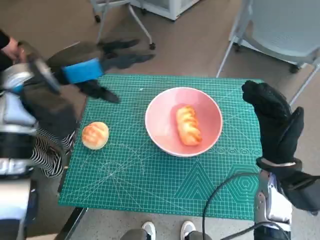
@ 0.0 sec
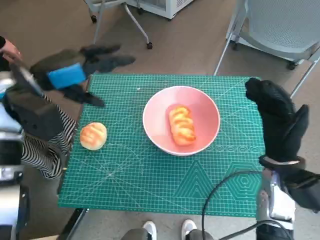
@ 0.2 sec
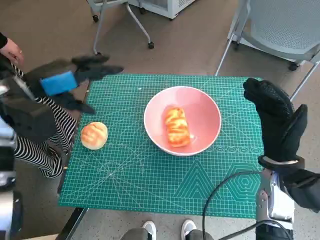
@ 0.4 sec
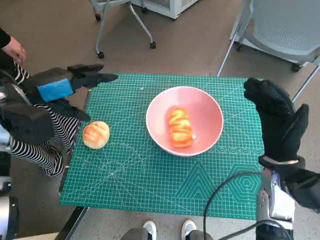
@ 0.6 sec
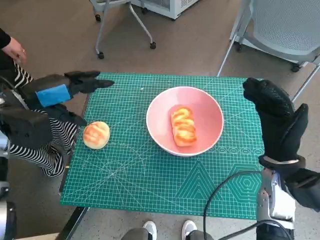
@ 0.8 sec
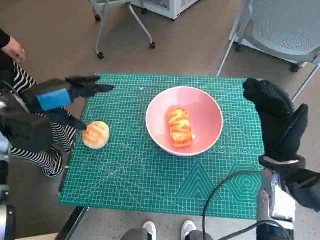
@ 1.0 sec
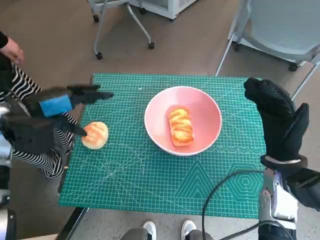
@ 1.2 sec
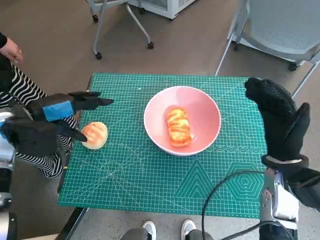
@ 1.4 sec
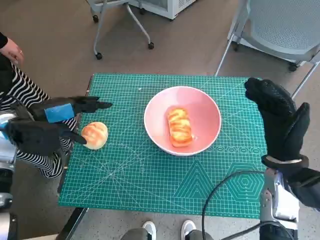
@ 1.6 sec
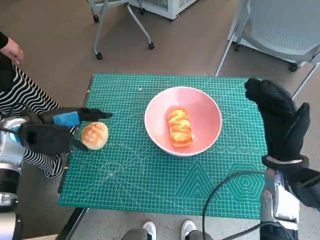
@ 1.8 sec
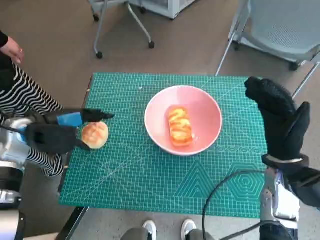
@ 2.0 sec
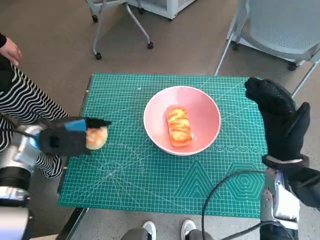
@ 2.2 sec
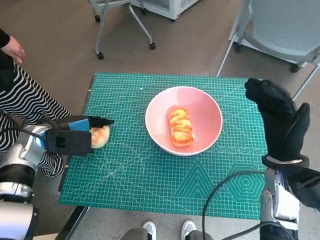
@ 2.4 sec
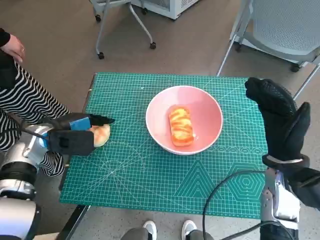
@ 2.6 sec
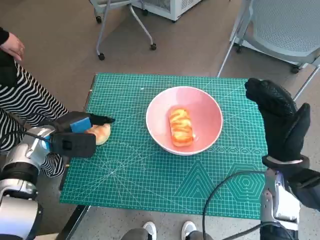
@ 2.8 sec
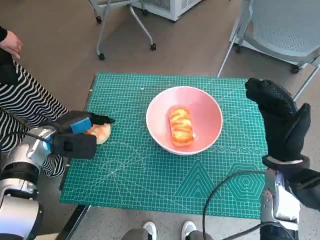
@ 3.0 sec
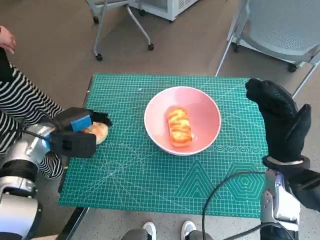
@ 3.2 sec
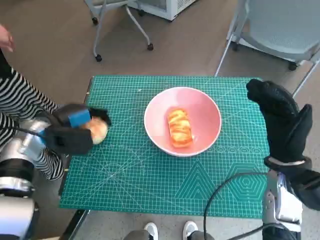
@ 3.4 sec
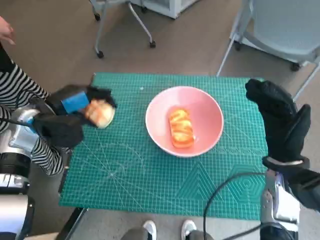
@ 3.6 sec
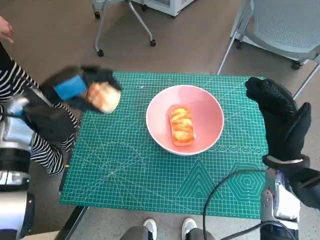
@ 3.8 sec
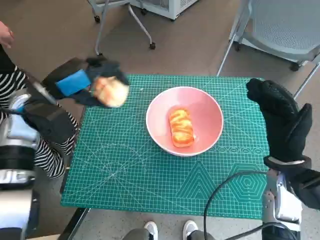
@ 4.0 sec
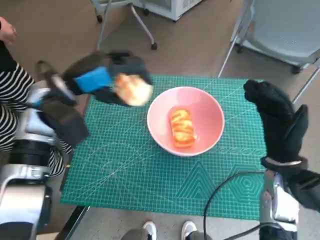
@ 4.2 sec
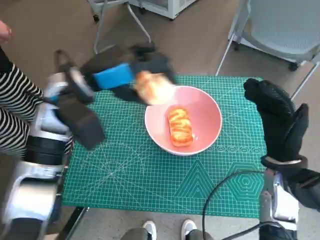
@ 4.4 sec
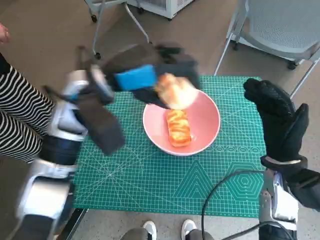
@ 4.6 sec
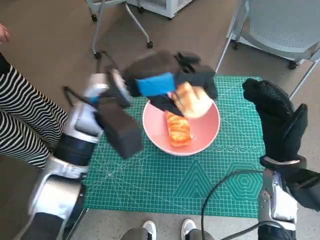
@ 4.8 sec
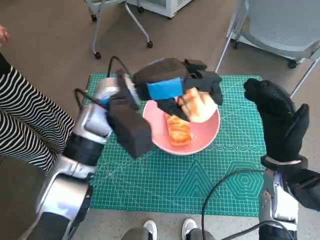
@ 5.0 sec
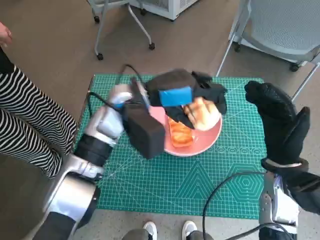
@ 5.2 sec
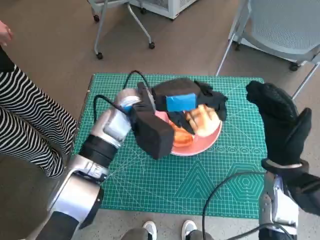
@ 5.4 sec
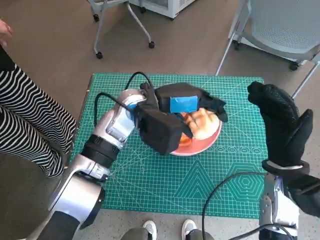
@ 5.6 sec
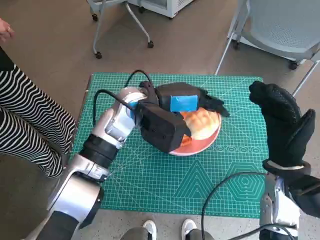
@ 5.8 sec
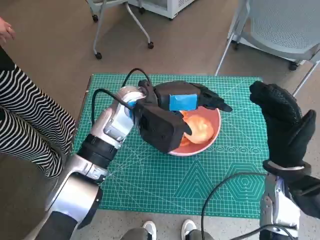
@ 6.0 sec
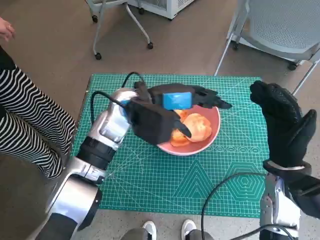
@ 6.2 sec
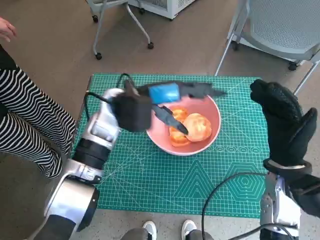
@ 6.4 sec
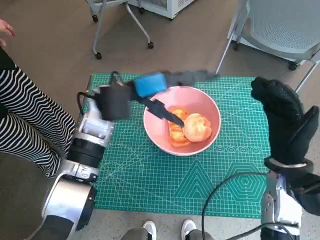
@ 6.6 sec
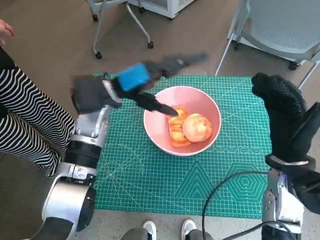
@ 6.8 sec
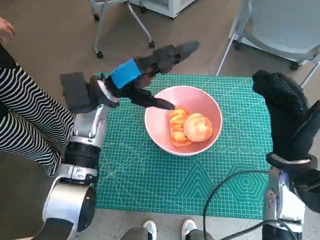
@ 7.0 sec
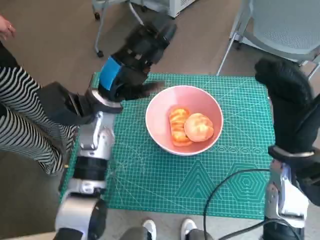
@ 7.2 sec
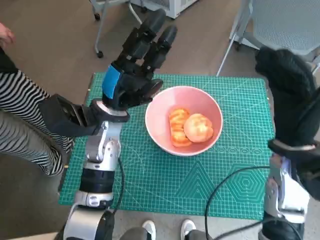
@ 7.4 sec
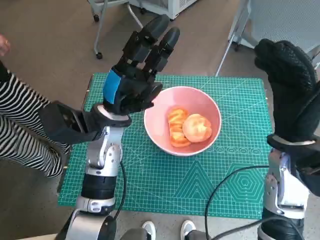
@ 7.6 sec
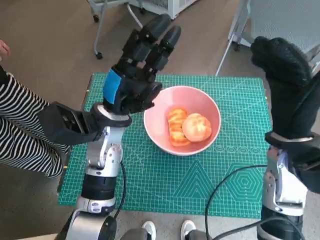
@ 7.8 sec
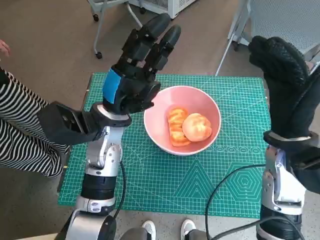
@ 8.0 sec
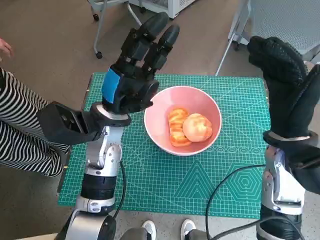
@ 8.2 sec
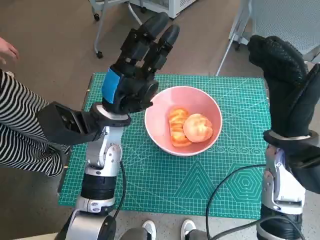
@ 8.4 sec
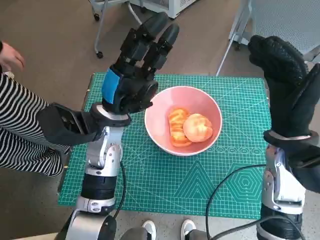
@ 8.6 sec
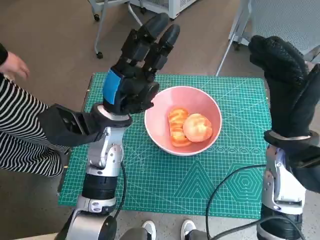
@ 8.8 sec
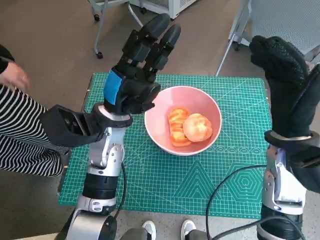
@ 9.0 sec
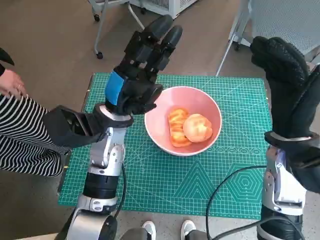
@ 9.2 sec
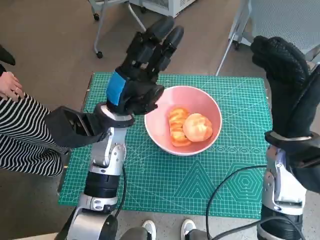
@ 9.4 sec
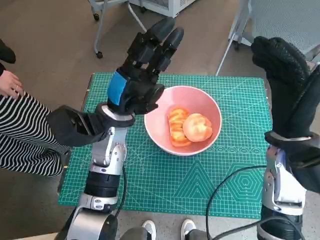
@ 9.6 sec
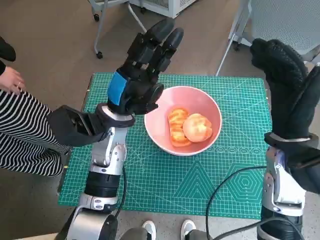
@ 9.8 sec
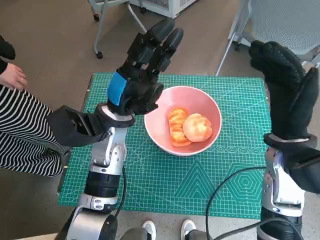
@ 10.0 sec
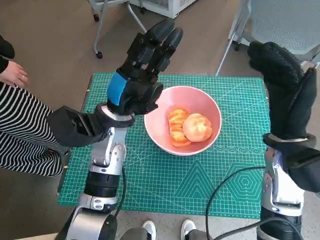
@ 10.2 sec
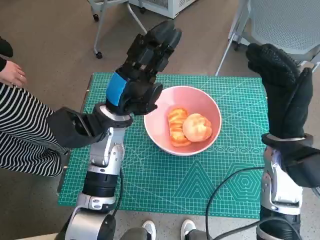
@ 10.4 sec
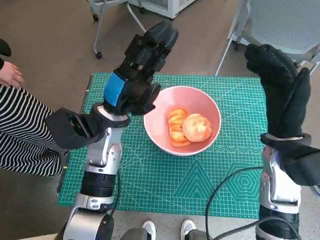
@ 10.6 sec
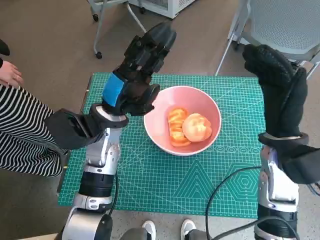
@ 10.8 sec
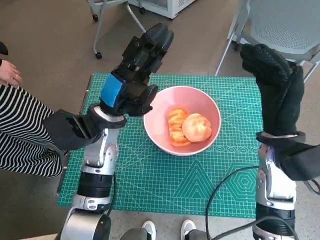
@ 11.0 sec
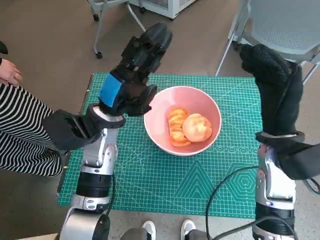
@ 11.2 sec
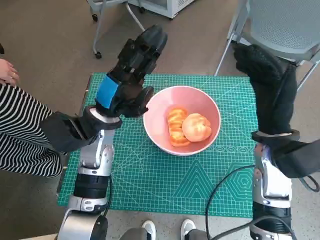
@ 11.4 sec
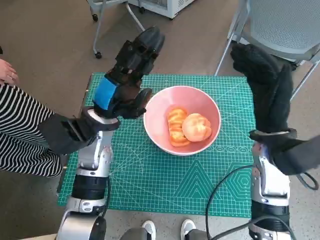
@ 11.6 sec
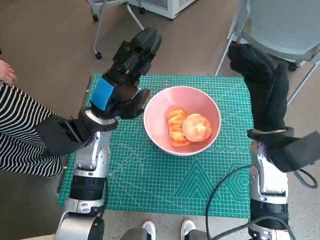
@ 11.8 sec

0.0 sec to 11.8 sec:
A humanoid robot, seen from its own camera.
Task of the whole recording: Push the bowl into the center of the table and put the bread into the bowl.
Step, 0.0 sec to 3.2 sec: Grasp the round bread with left hand.
Step, 3.4 sec to 6.4 sec: Place the round bread in pink bowl with left hand.
0.0 sec to 1.4 sec: The left hand moves to the left and downward, approximately 10 cm.
1.4 sec to 3.0 sec: The left hand shifts approximately 10 cm downward.
3.0 sec to 4.4 sec: The left hand moves upward and to the right, approximately 20 cm.
4.4 sec to 6.0 sec: The left hand moves to the right, some 10 cm.
6.0 sec to 7.4 sec: The right hand moves approximately 5 cm; the left hand is displaced to the left by about 5 cm.
8.8 sec to 10.4 sec: Neither hand changes place.

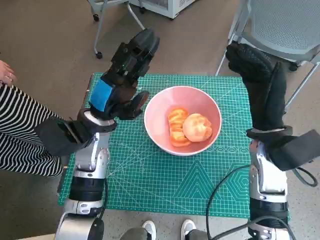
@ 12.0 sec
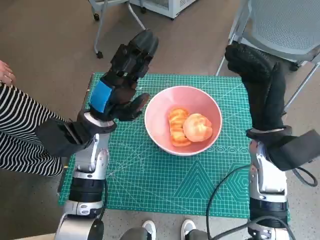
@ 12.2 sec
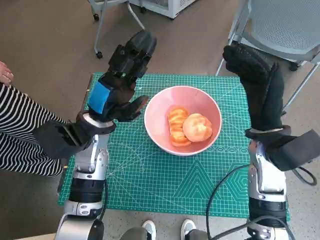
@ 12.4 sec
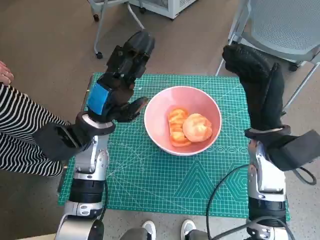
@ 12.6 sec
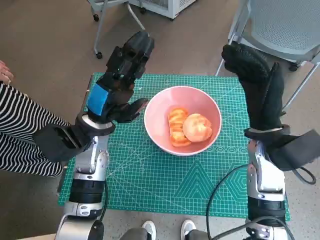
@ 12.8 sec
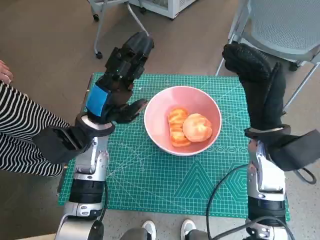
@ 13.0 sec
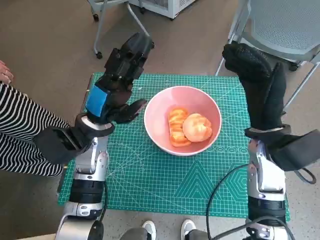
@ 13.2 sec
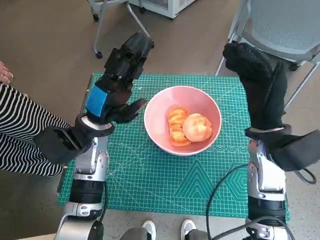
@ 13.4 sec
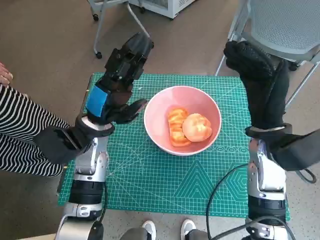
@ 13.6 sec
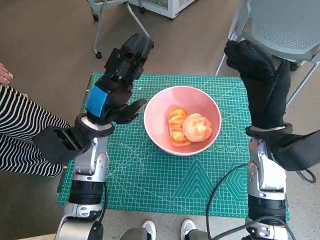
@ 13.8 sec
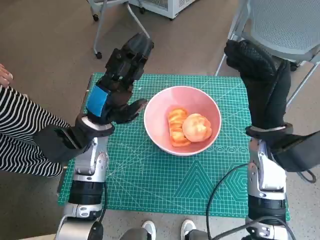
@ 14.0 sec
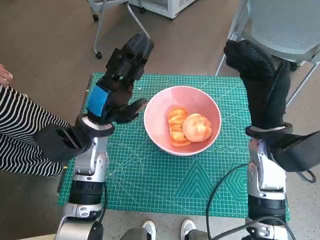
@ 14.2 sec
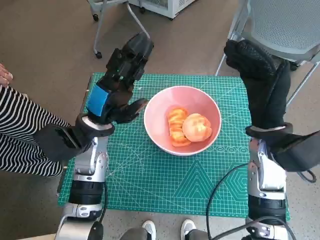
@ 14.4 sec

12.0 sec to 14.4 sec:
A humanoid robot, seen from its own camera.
Task of the whole recording: Push the bowl into the center of the table and put the bread into the bowl.
12.0 sec to 13.2 sec: The two hands keep their place.
13.2 sec to 14.4 sec: The two hands keep their place.
